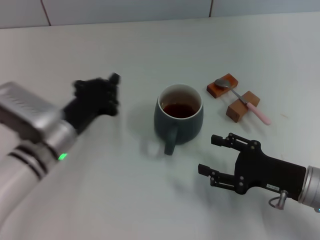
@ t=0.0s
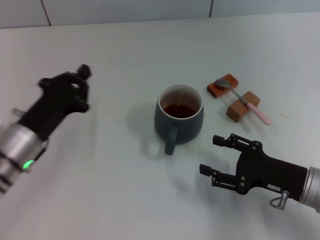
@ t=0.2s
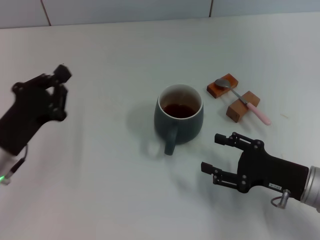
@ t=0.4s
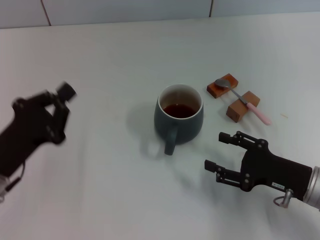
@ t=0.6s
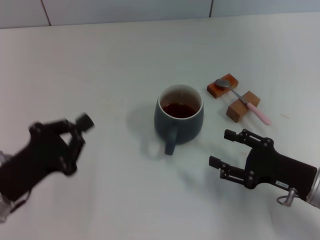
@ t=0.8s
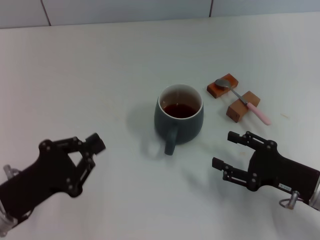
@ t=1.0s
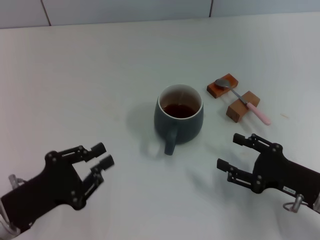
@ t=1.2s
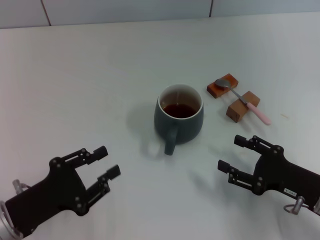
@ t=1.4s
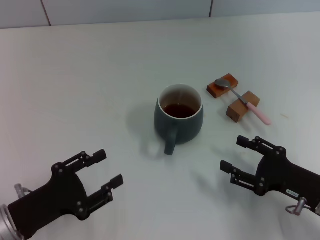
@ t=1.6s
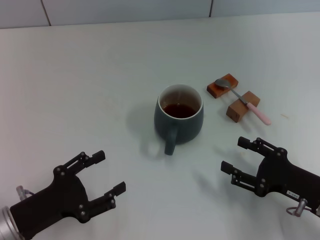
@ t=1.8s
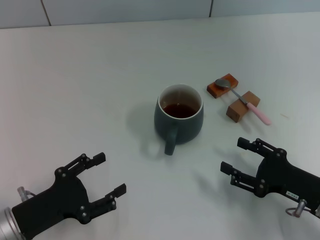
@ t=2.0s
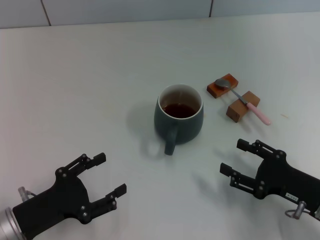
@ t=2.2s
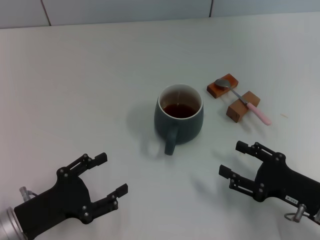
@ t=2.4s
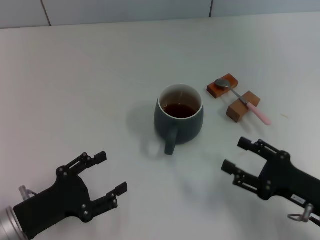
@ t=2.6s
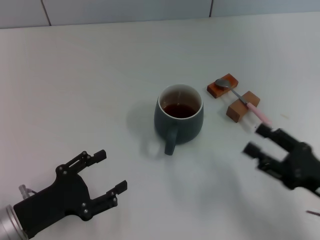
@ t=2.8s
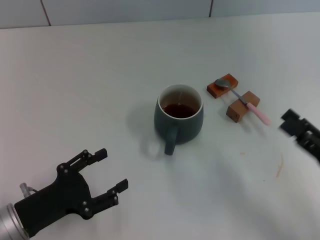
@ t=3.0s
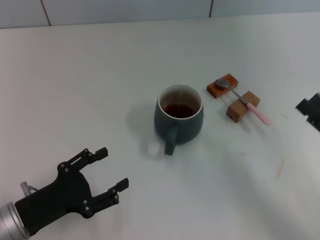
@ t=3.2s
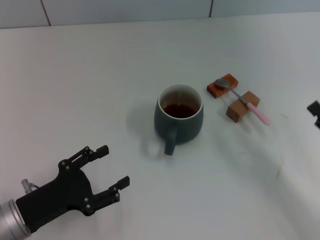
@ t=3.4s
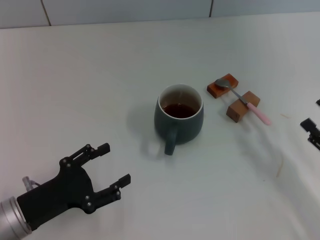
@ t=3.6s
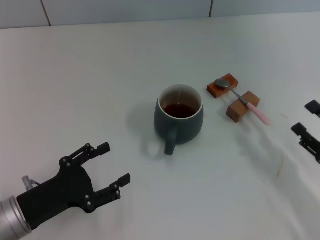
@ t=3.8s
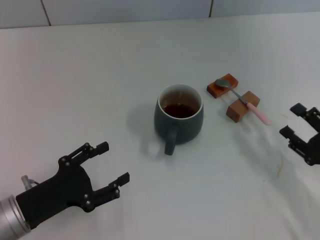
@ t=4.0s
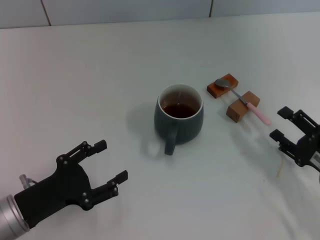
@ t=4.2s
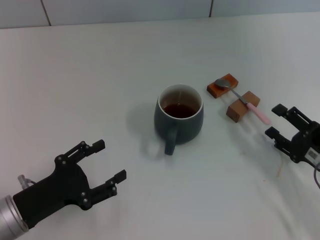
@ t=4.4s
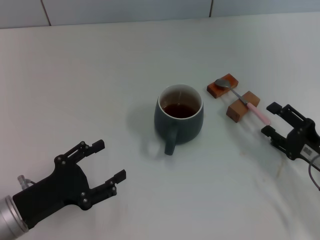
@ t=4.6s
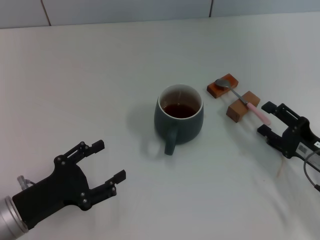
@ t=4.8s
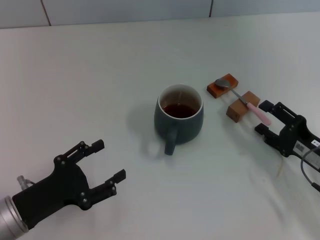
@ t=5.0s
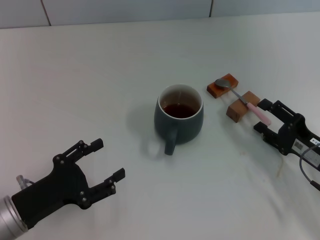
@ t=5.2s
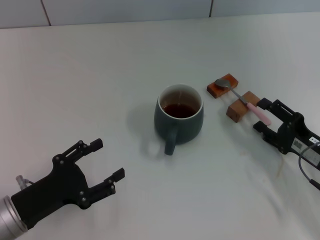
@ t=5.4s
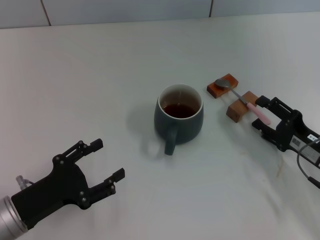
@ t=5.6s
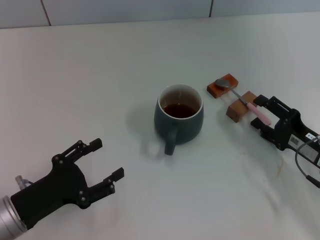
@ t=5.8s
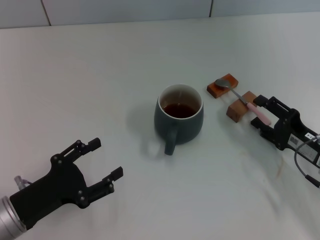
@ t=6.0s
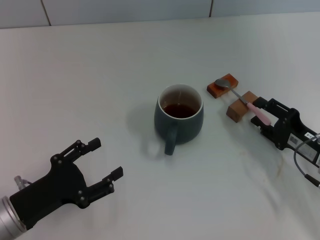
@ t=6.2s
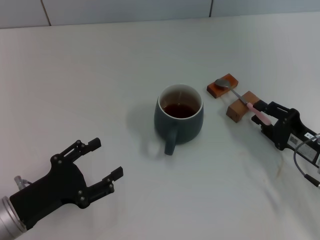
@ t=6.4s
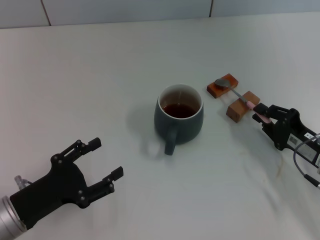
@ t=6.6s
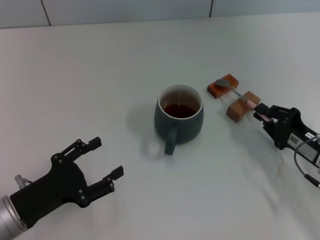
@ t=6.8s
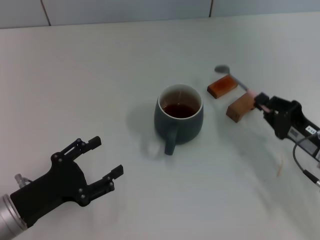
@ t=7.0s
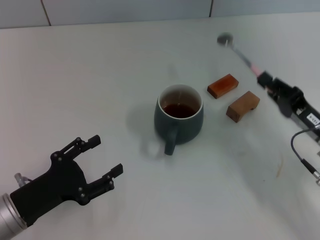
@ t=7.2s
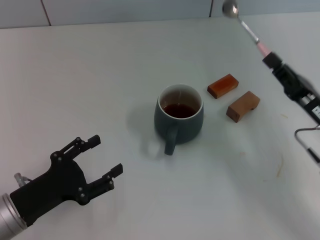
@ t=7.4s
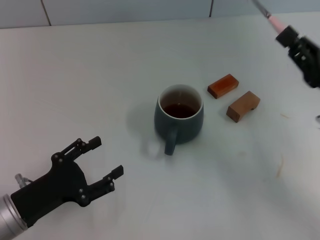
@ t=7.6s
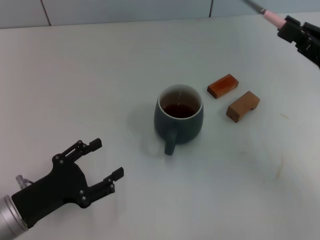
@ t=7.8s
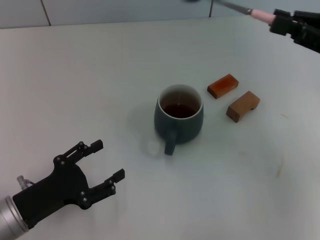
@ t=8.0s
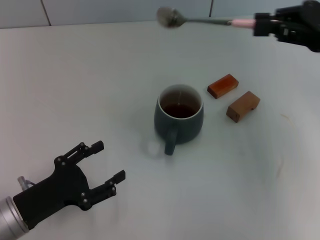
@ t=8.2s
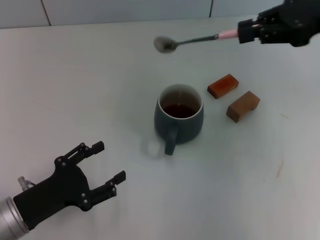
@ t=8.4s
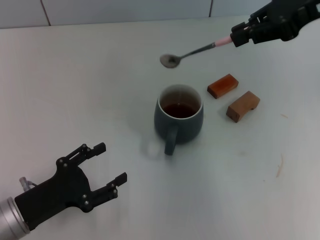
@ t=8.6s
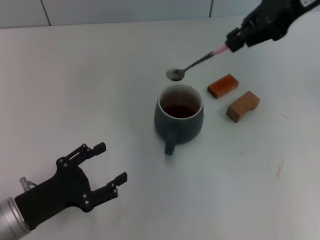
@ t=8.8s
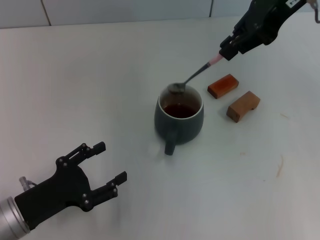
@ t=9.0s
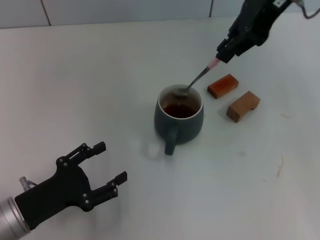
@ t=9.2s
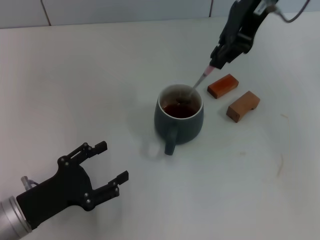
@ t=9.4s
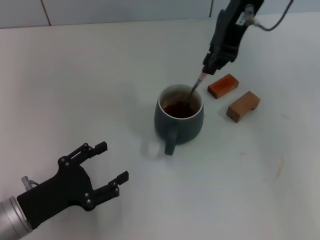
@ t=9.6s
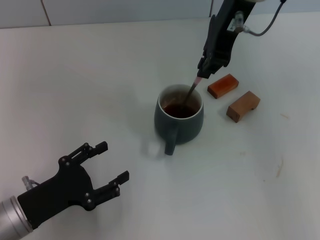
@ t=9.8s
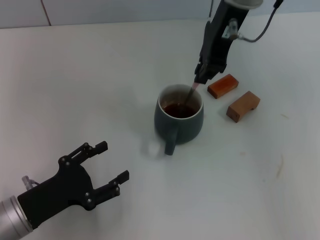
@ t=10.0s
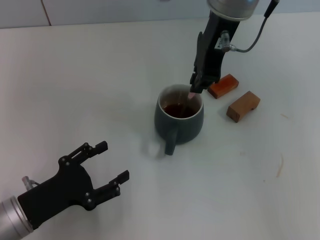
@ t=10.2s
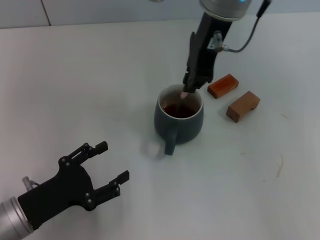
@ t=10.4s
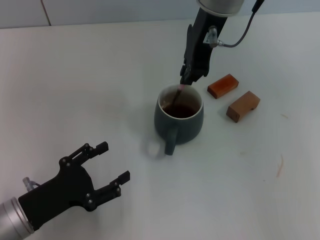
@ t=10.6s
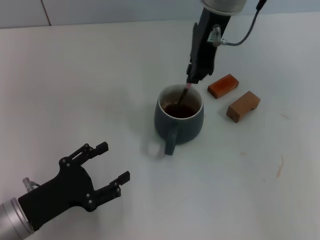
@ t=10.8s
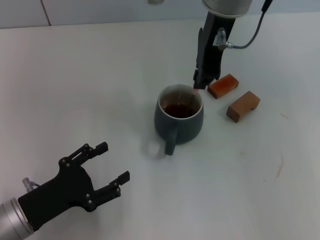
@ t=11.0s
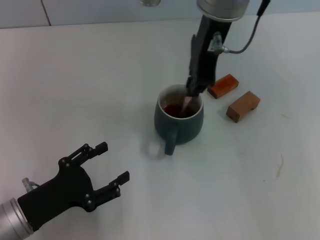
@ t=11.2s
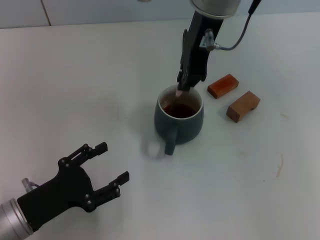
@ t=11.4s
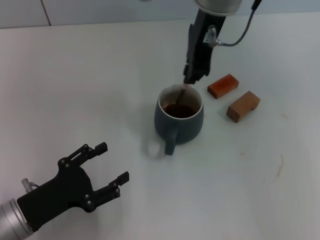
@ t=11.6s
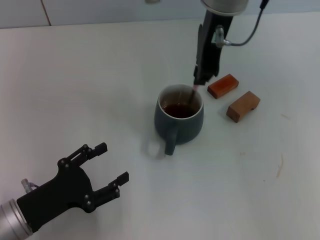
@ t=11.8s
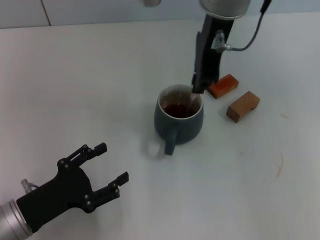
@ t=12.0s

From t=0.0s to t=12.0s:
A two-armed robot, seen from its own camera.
Task of the whole recording: Move the grey cup to the center, lift the pink spoon, stir it three times in the cup, and put the spoon into the cup.
Step, from t=0.0s to t=7.2s: Pick up the spoon with the right gripper.
From t=0.0s to t=1.6s: The left gripper travels backward and to the left by some 15 cm, and opens up.
From t=1.6s to t=3.0s: The left gripper opens its fingers. Meanwhile the right gripper changes place by approximately 5 cm.
From t=3.0s to t=4.4s: The right gripper shifts by approximately 5 cm.
From t=4.4s to t=6.0s: The grippers move only a little.
From t=6.0s to t=7.6s: The right gripper moves upward, approximately 10 cm, and closes up.
From t=7.6s to t=9.0s: The right gripper moves upward, forward and to the left, approximately 30 cm.
From t=9.0s to t=10.4s: The right gripper travels to the left by some 10 cm.
From t=10.4s to t=12.0s: The grippers make only small movements.

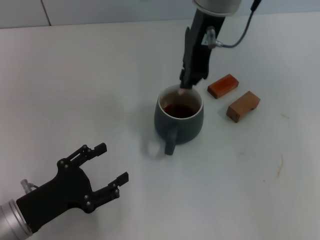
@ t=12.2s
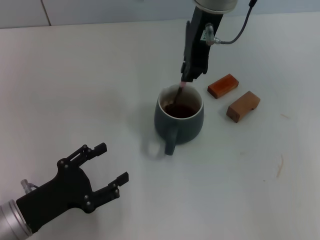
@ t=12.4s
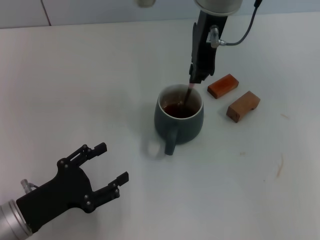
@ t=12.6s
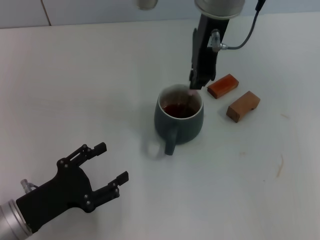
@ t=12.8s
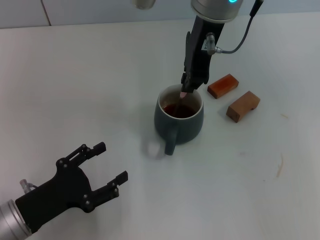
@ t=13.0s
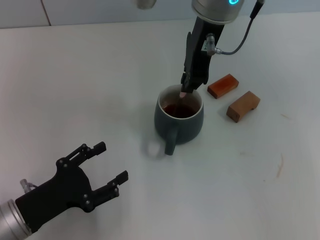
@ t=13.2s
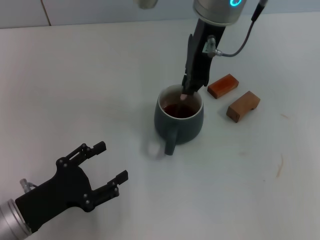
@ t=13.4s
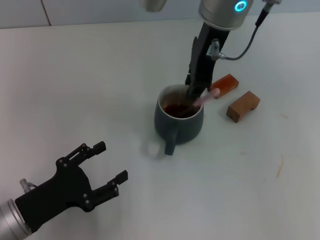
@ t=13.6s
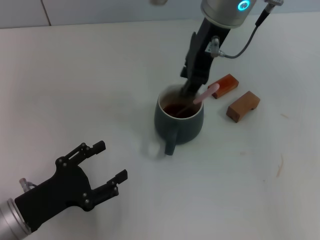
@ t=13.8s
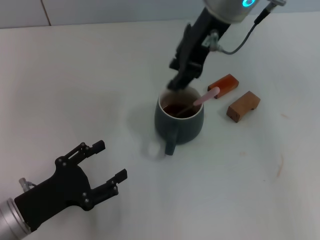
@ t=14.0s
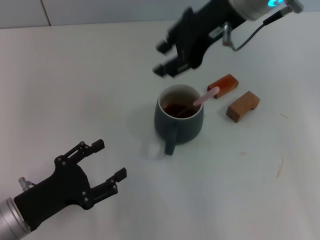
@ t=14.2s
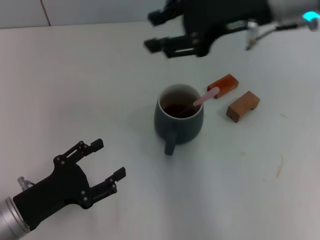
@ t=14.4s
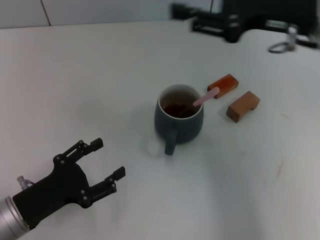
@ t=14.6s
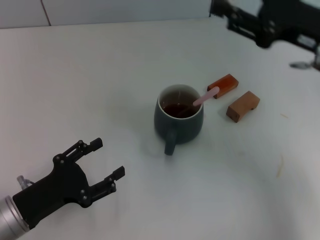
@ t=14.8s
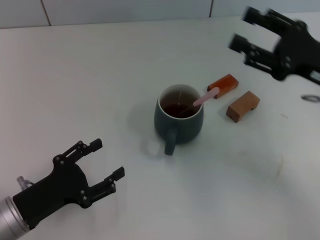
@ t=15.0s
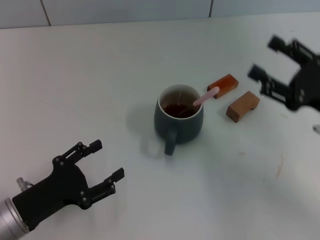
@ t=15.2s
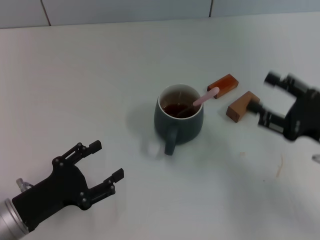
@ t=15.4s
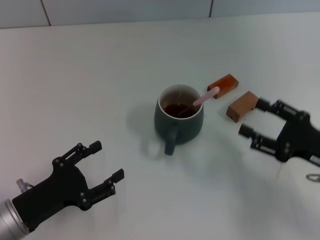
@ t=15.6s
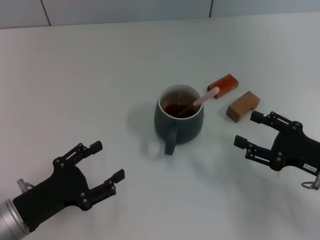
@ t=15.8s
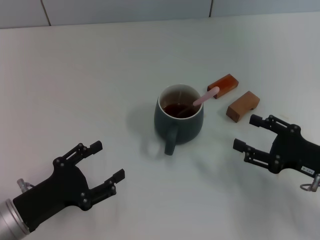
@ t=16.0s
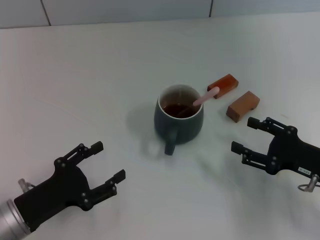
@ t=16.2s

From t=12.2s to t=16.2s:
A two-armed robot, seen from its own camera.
Task of the whole recording: Move the grey cup to the center, lift the pink spoon, stir it three times in the cup, and put the spoon into the cup.
Step, from t=12.2s to t=14.4s: Stir the coffee in the cup with the right gripper.
From t=12.2s to t=13.6s: The grippers move only a little.
From t=13.6s to t=14.8s: The right gripper travels to the right, backward and downward by about 20 cm, and opens up.
From t=14.8s to t=16.2s: The right gripper goes approximately 20 cm downward and backward, and opens up.
